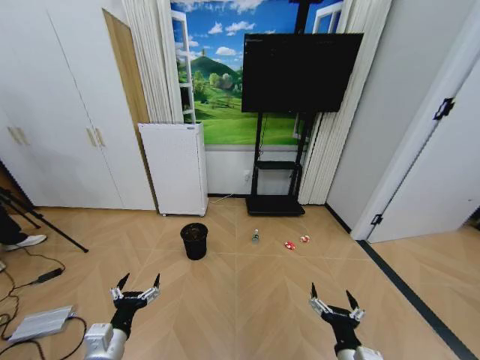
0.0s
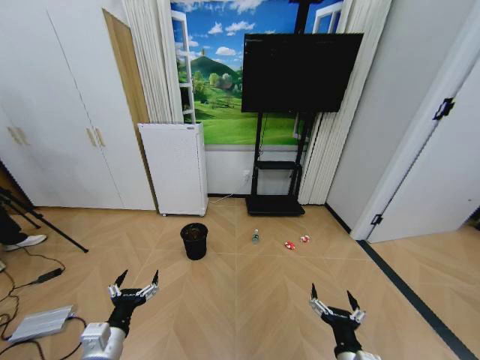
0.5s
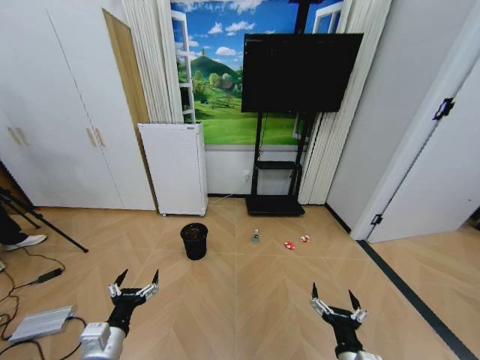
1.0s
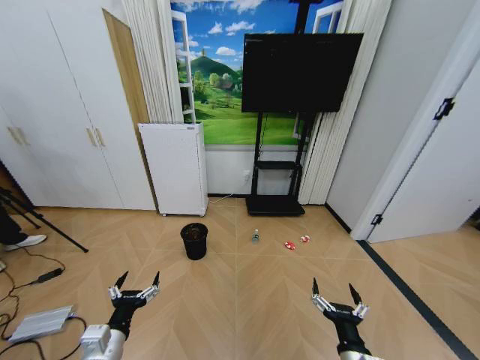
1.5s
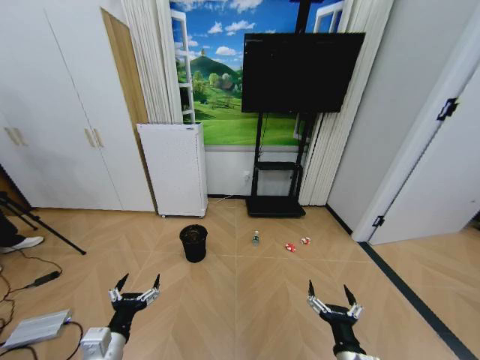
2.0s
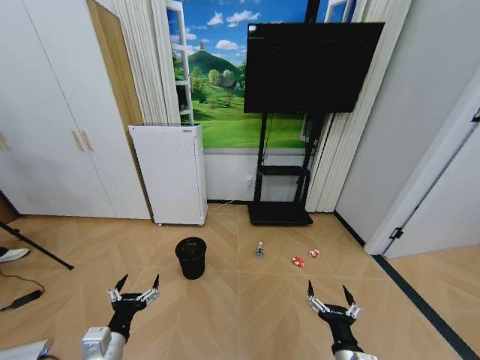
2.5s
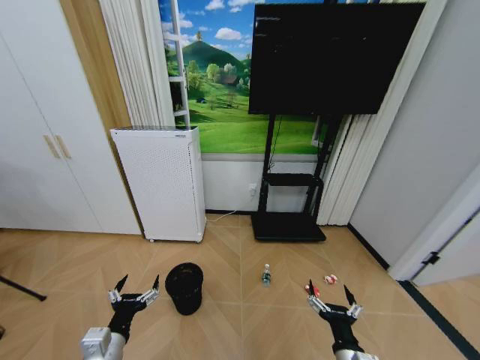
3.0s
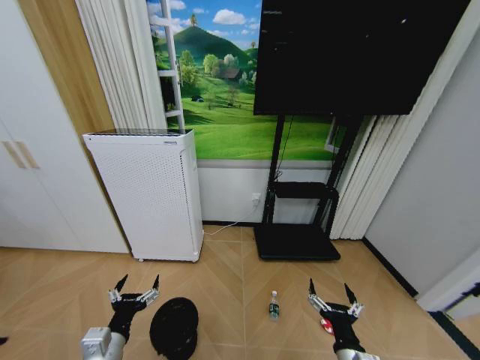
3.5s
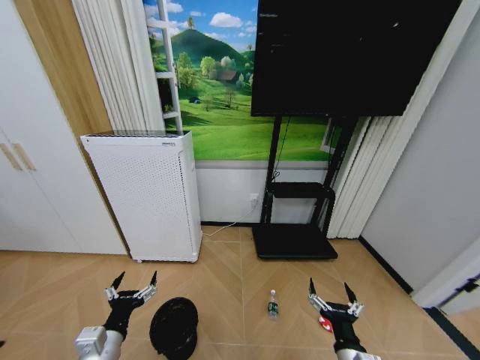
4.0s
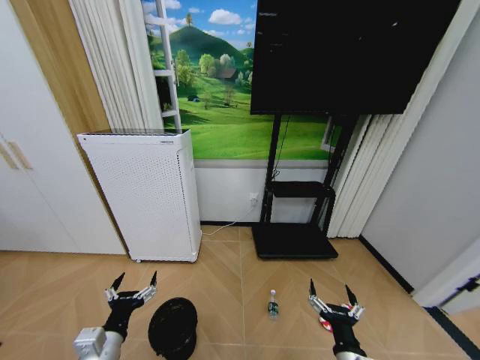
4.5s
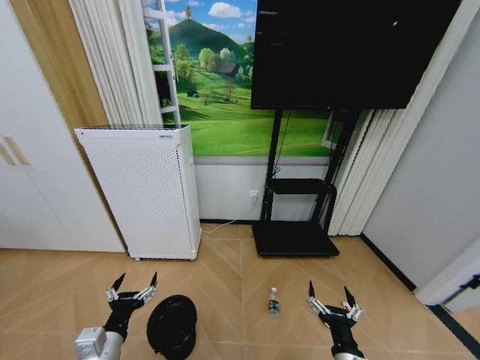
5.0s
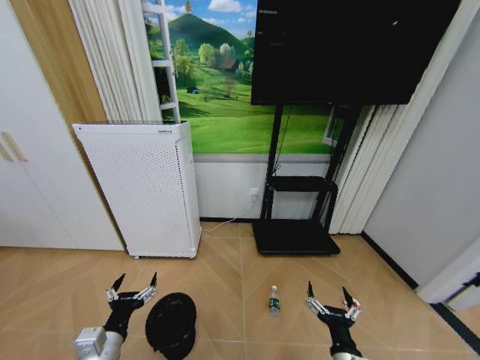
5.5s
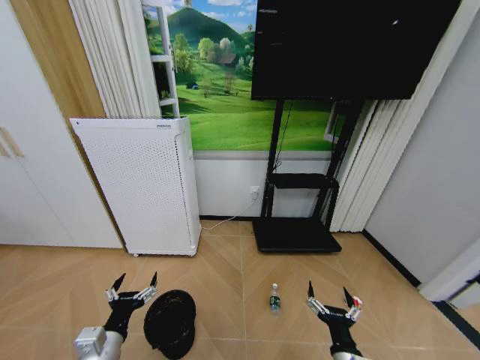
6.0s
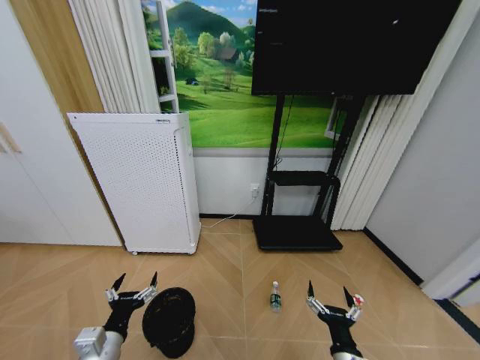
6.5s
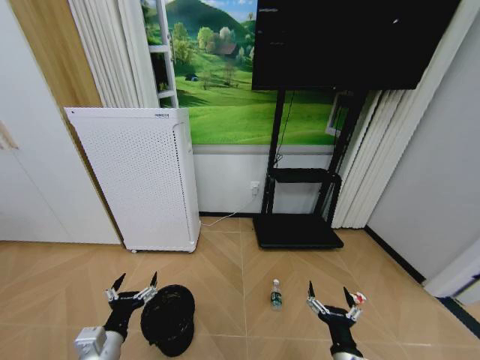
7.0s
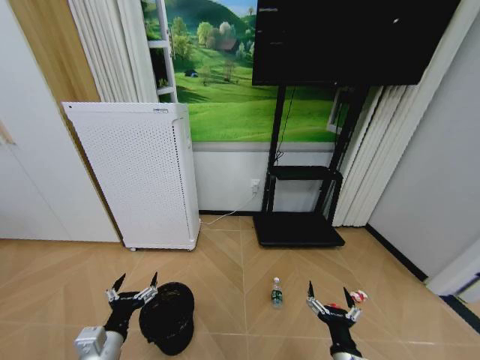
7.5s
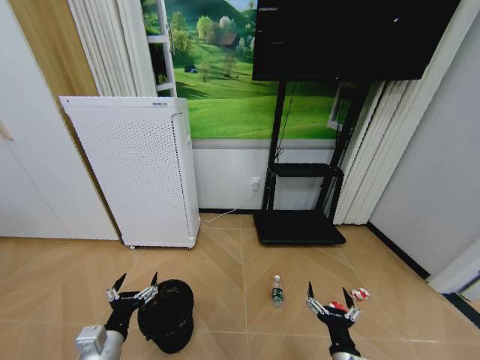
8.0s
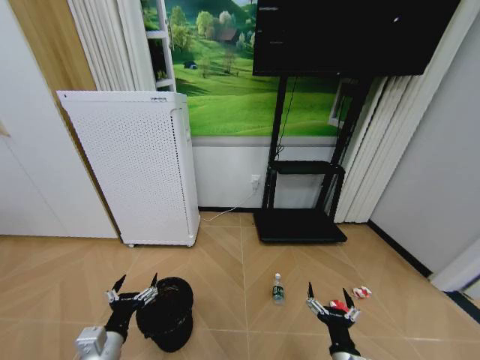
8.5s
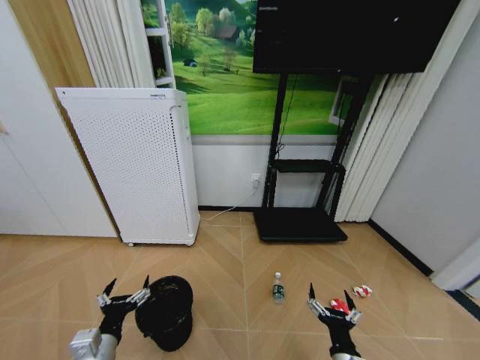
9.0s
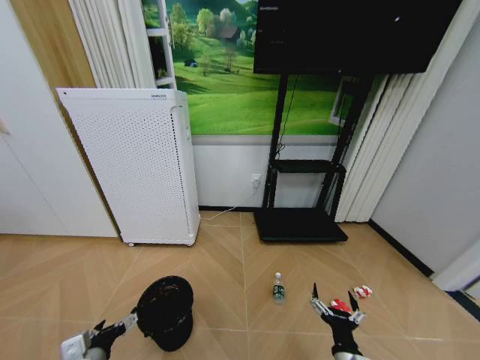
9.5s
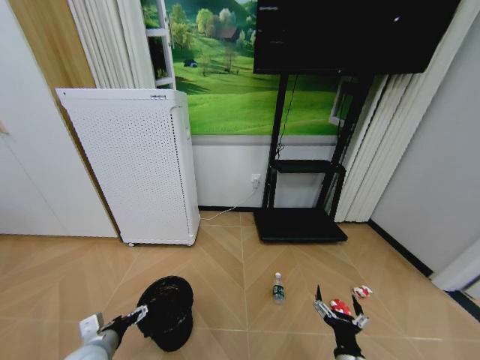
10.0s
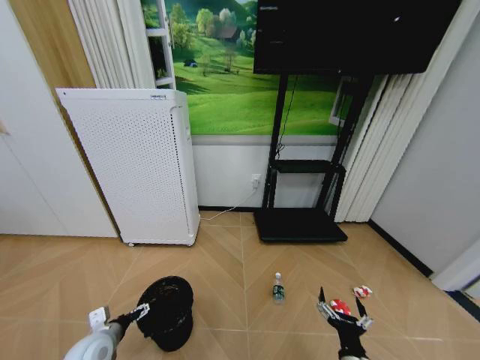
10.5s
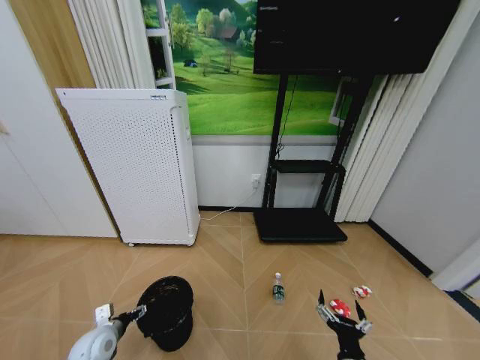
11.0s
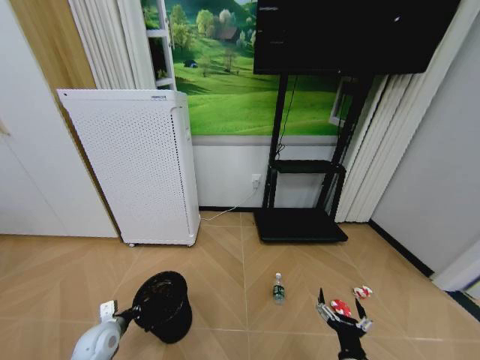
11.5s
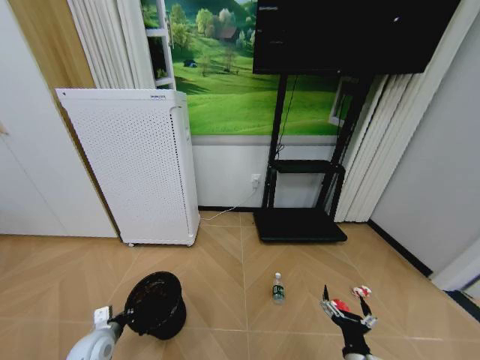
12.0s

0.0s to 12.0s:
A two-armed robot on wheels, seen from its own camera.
Task of the whole recording: Pick up the trash bin and place the garbage on the floor into it.
4.0s to 6.0s: There are only small adjustments of the grippers.
6.0s to 8.0s: Neither gripper changes place.
8.0s to 10.0s: The left gripper moves approximately 5 cm.
10.0s to 12.0s: The left gripper heads downward and forward, covering about 10 cm, and closes up.

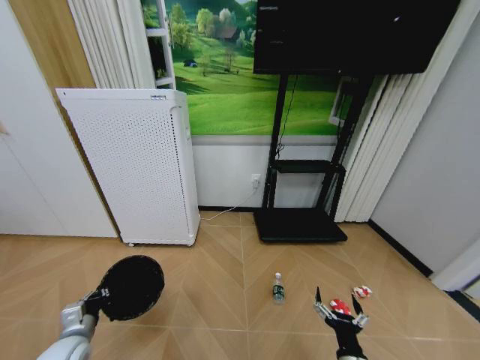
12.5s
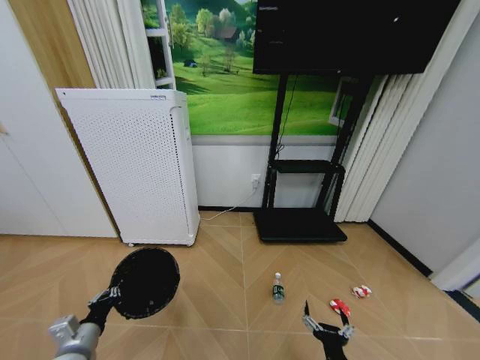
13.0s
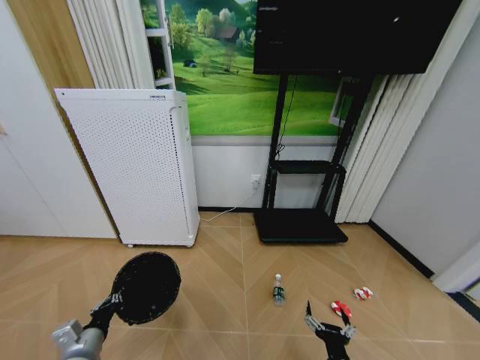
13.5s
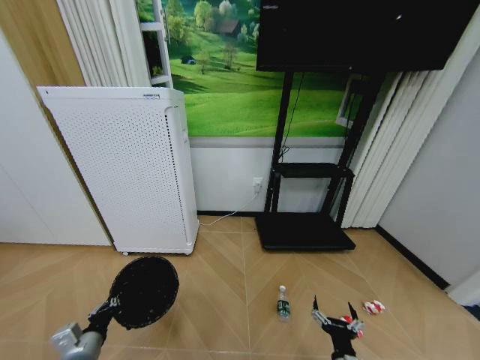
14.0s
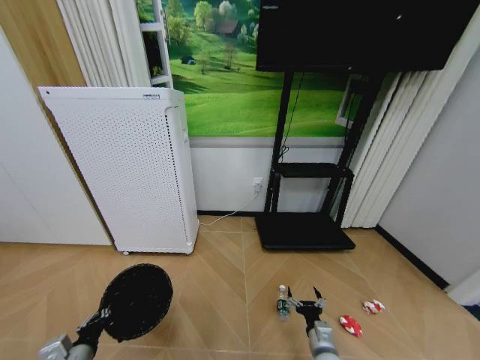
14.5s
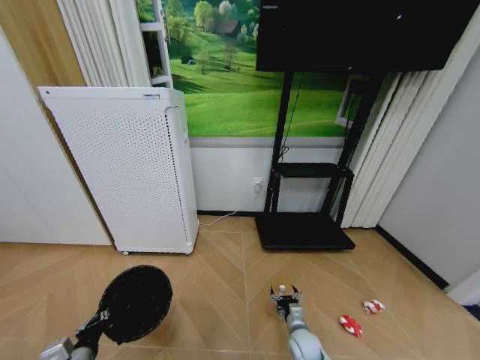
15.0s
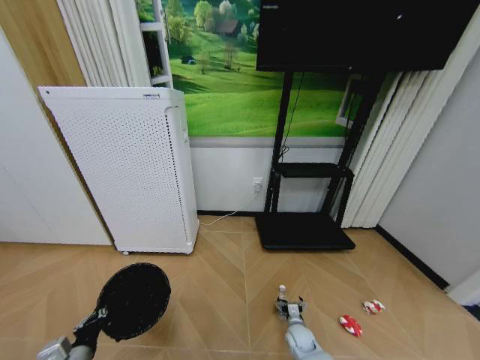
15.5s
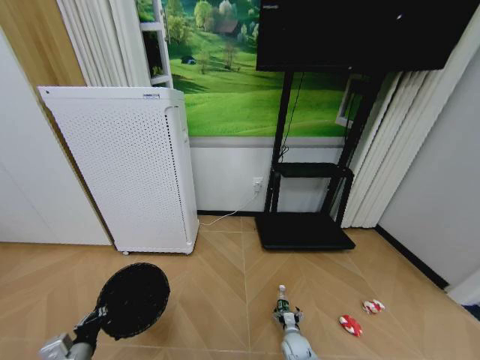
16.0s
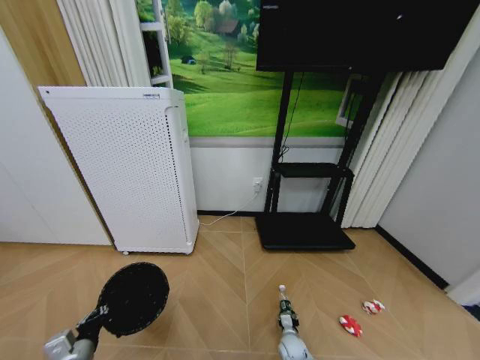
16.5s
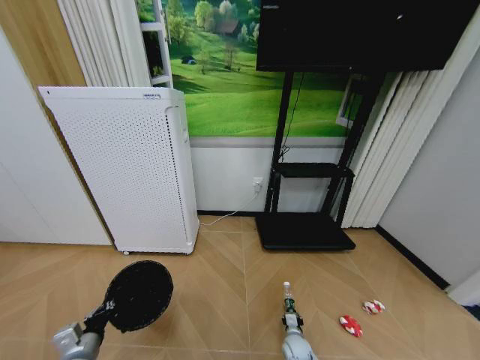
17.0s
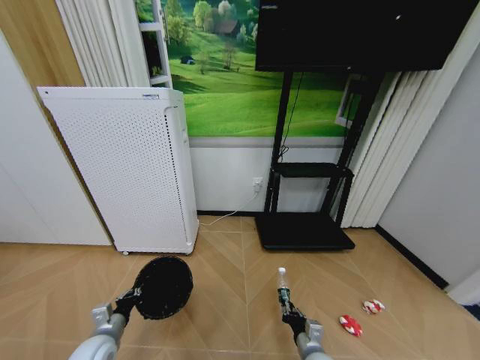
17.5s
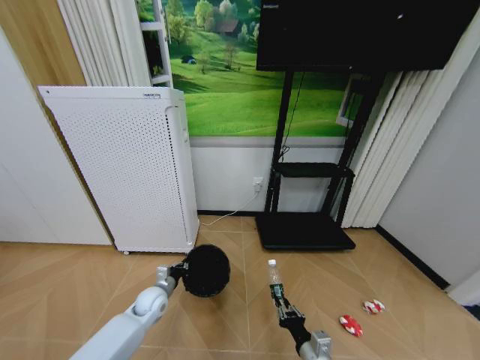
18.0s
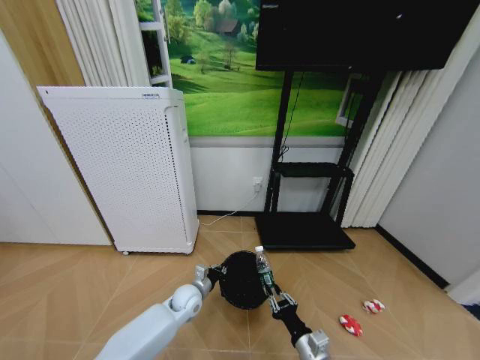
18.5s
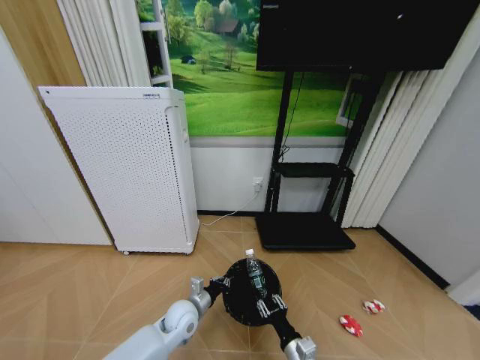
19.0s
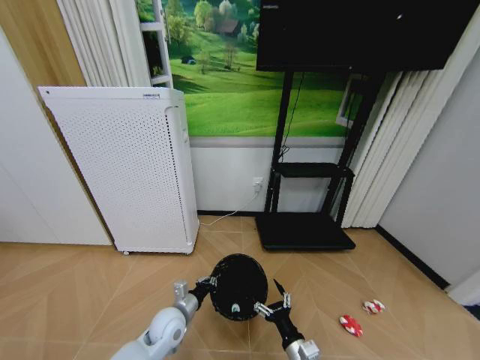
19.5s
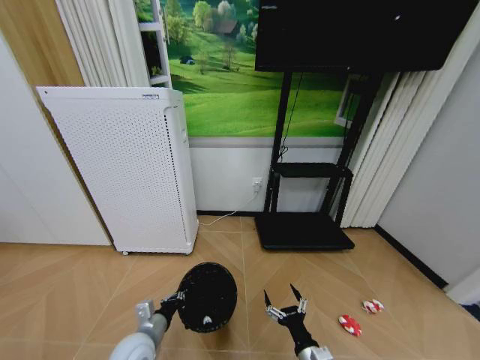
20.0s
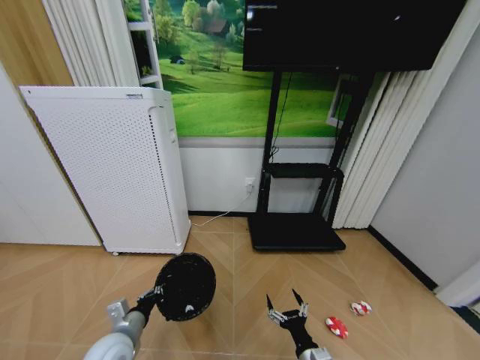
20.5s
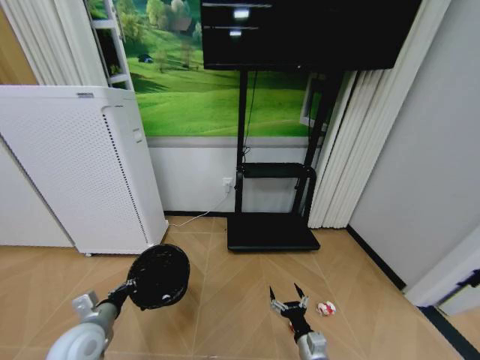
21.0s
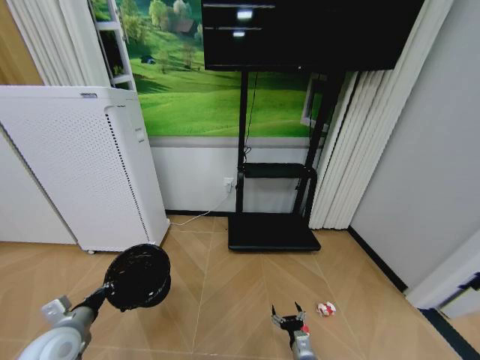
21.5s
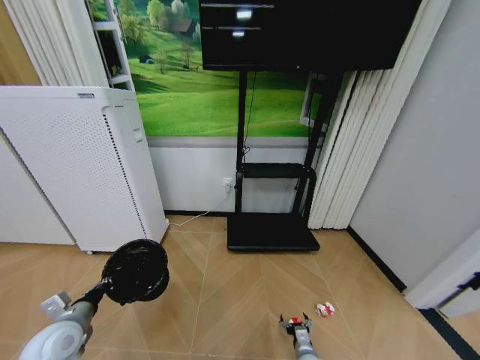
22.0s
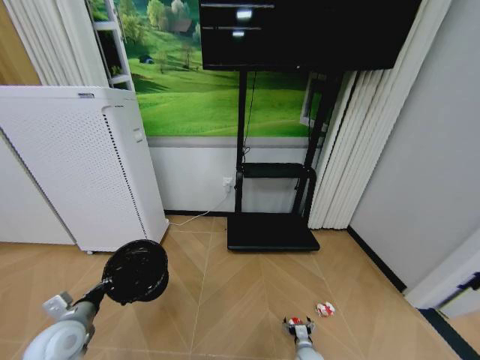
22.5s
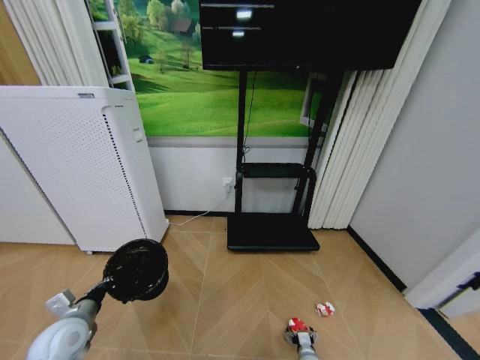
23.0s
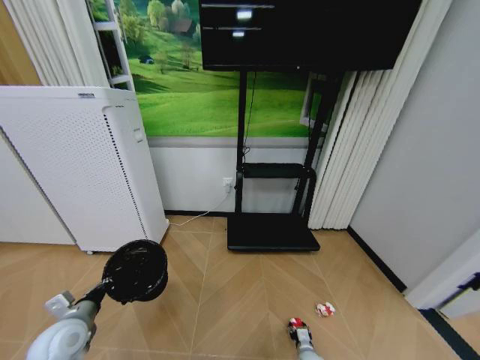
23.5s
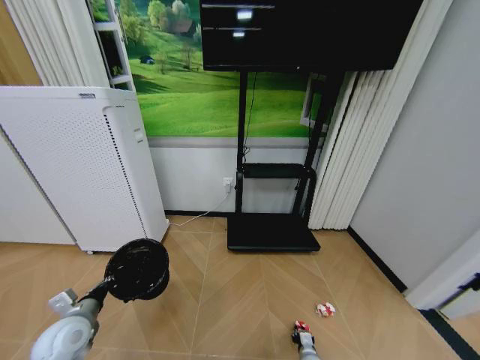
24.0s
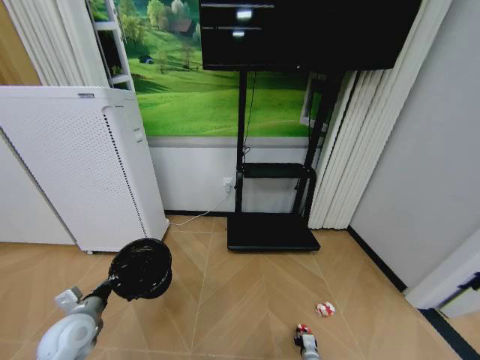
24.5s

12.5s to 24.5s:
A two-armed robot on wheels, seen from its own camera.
Task of the whole recording: Pick up the trash bin and place the garbage on the floor into it.
12.5s to 14.5s: The left gripper travels backward by approximately 5 cm, while the right gripper travels forward and downward by approximately 10 cm.
14.5s to 16.5s: The right gripper travels downward and forward by about 20 cm, and closes up.
16.5s to 18.5s: The right gripper shifts some 25 cm upward and backward, and closes. The left gripper is displaced to the right and forward by some 30 cm.
18.5s to 20.5s: The left gripper moves backward, to the left and upward, approximately 20 cm. The right gripper opens.
20.5s to 22.5s: The left gripper moves to the left, about 10 cm. Meanwhile the right gripper is displaced downward and forward by roughly 20 cm.
22.5s to 24.5s: The right gripper closes.

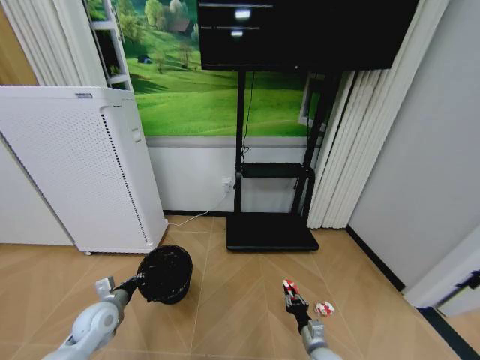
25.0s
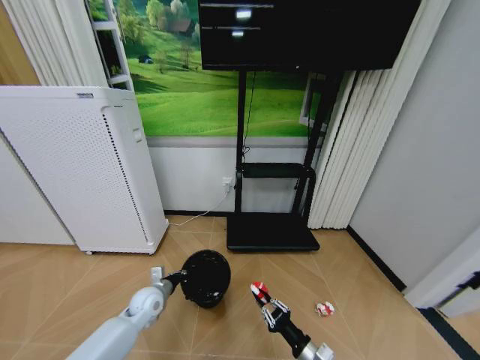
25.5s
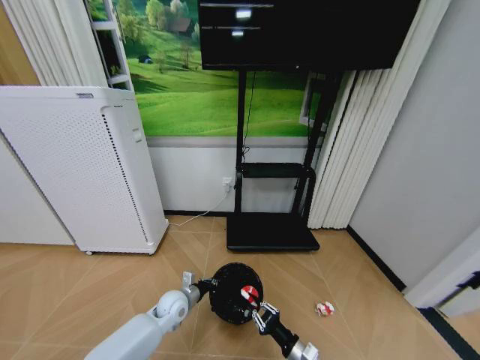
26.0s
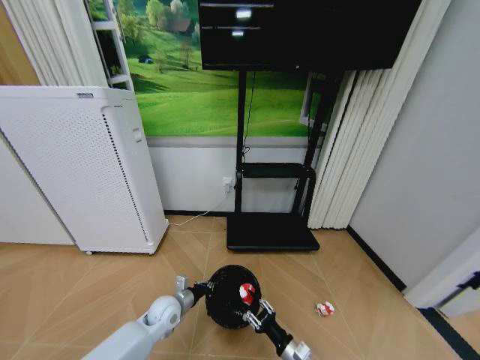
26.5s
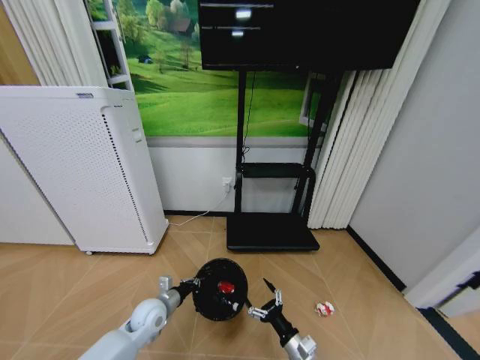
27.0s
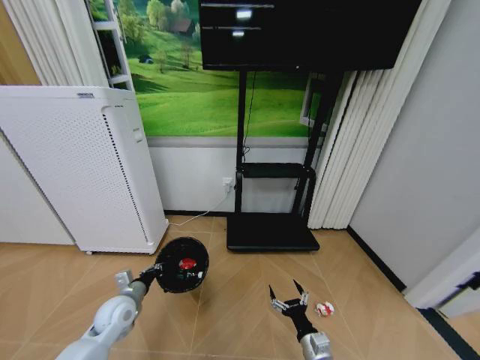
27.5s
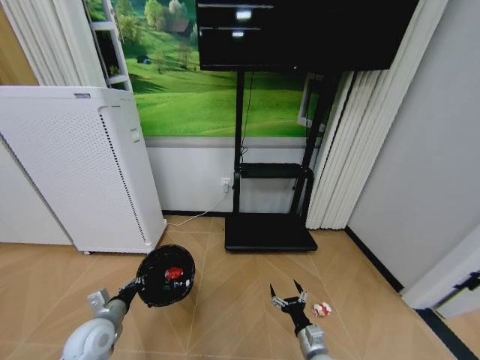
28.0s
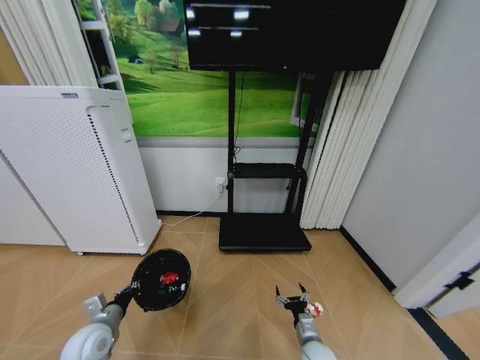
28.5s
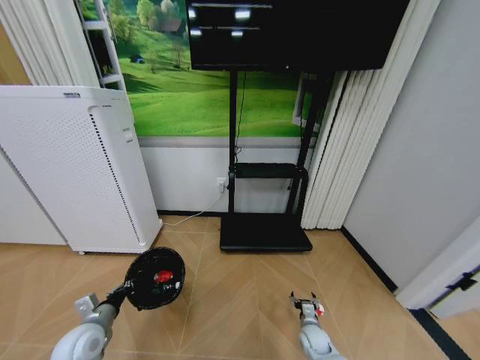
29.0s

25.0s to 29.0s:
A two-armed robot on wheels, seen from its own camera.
Task of the whole recording: Pick up the trash bin and place the garbage on the floor into it.
25.0s to 27.0s: The left gripper heads to the right, covering about 10 cm. The right gripper goes roughly 10 cm upward and to the left, and opens.
27.0s to 29.0s: The right gripper moves forward, downward and to the right, roughly 15 cm. The left gripper heads to the left and backward, covering some 15 cm.
